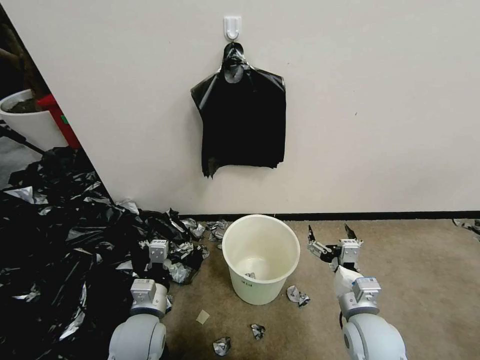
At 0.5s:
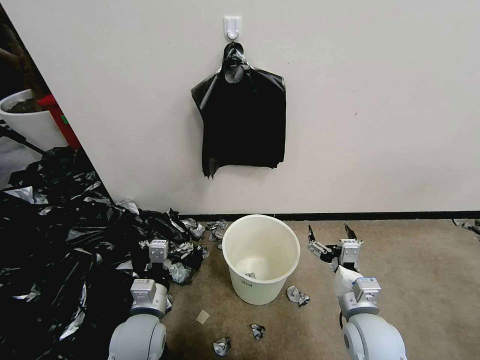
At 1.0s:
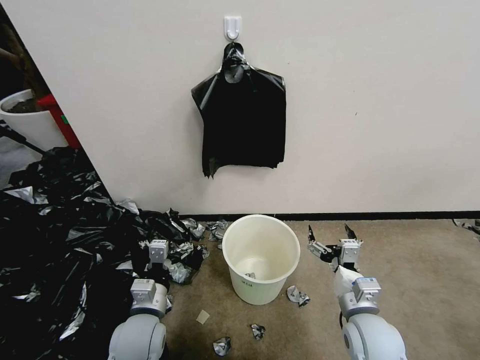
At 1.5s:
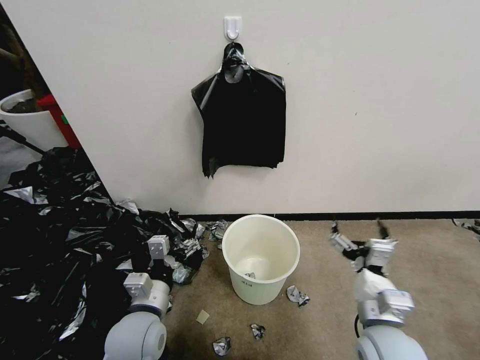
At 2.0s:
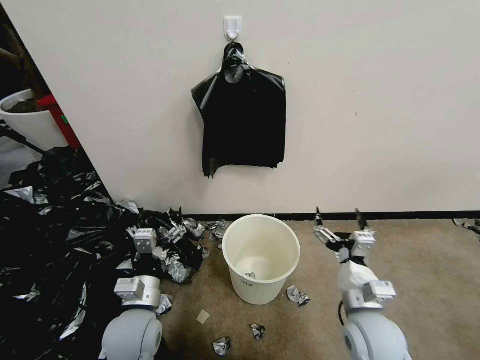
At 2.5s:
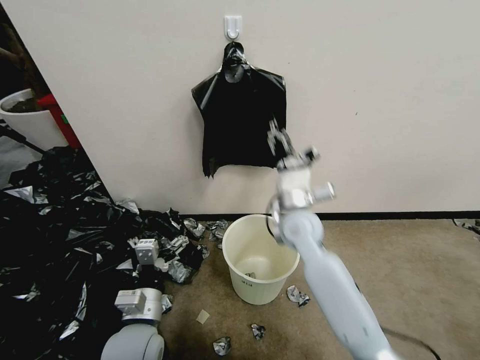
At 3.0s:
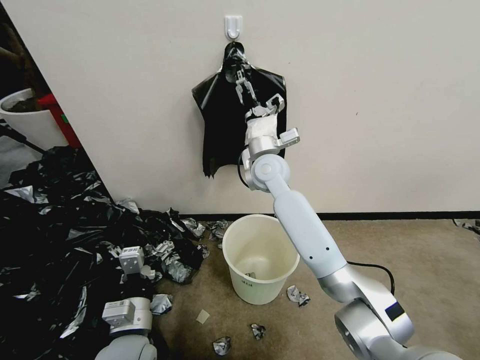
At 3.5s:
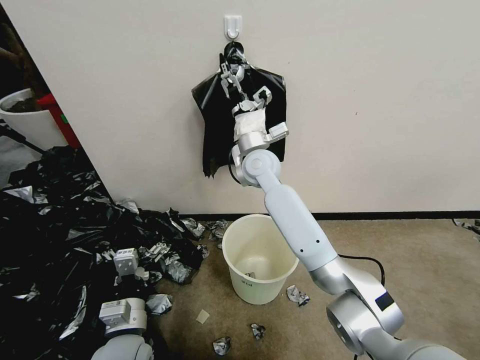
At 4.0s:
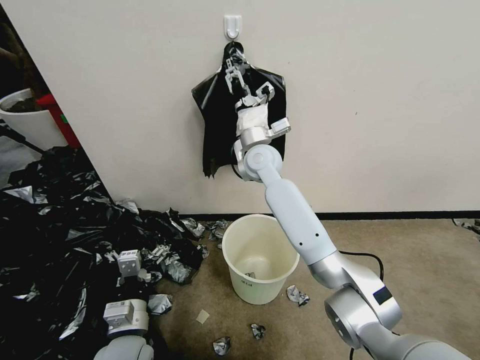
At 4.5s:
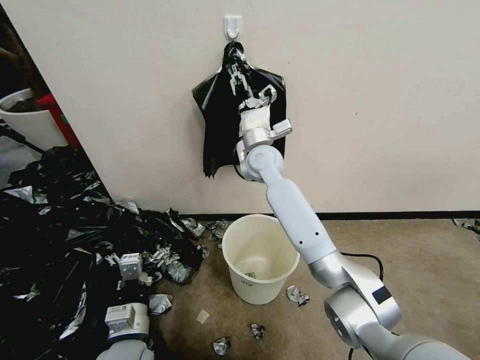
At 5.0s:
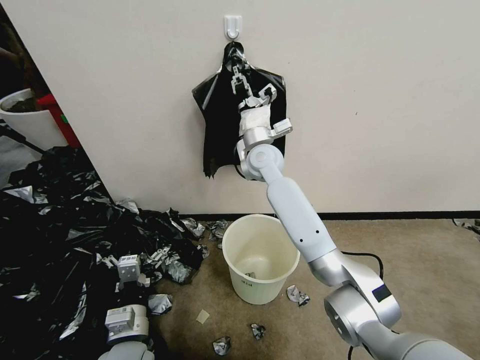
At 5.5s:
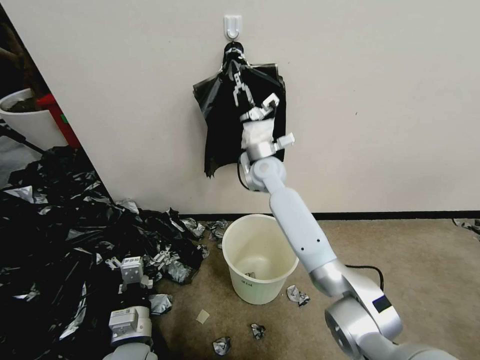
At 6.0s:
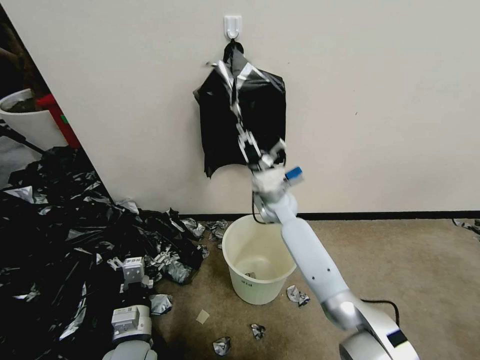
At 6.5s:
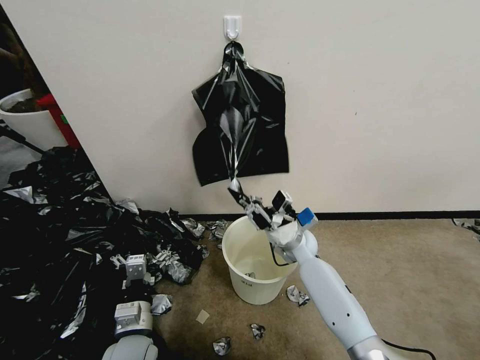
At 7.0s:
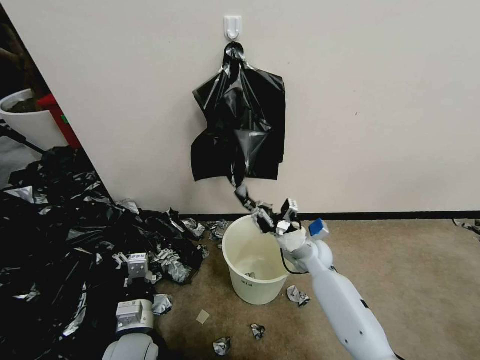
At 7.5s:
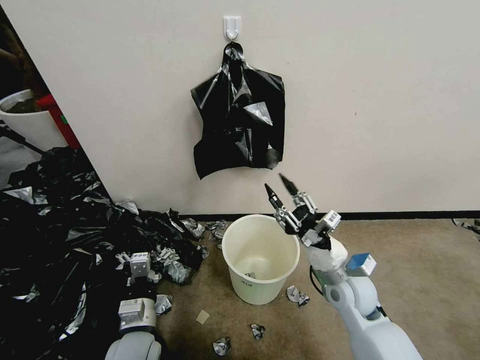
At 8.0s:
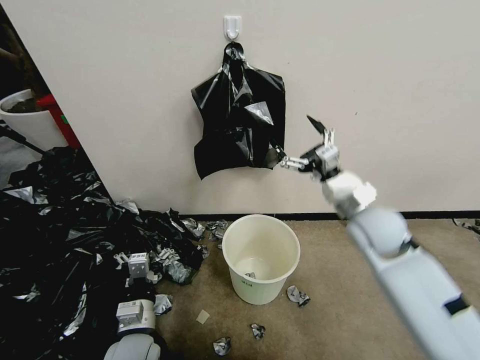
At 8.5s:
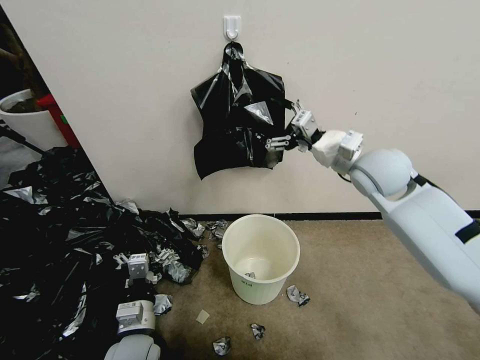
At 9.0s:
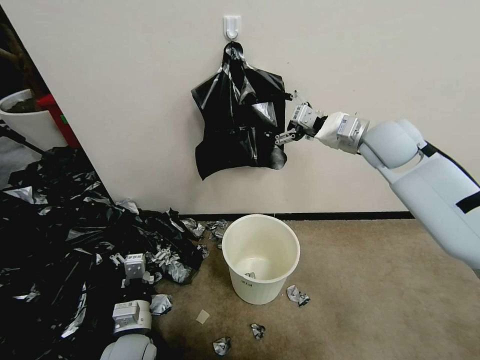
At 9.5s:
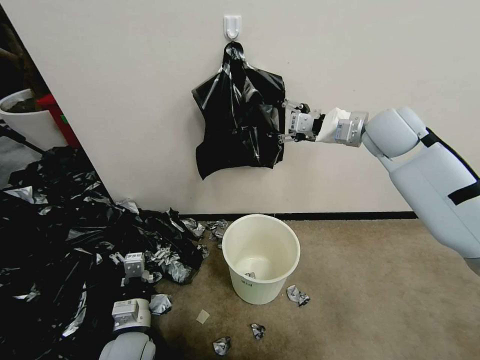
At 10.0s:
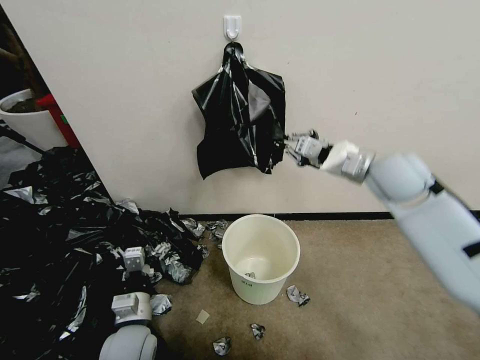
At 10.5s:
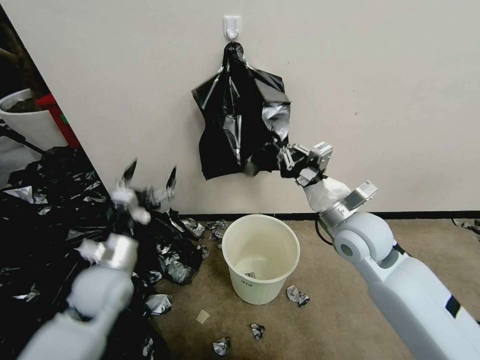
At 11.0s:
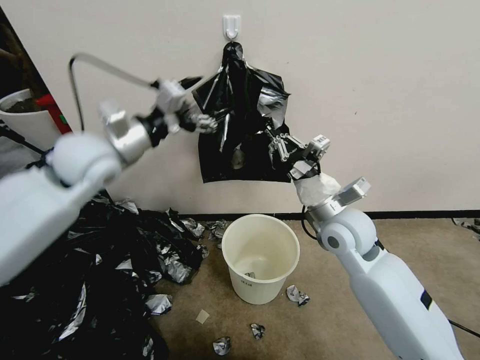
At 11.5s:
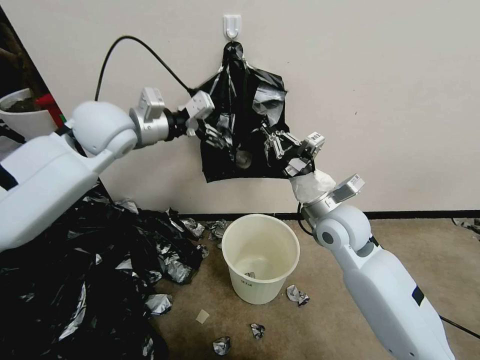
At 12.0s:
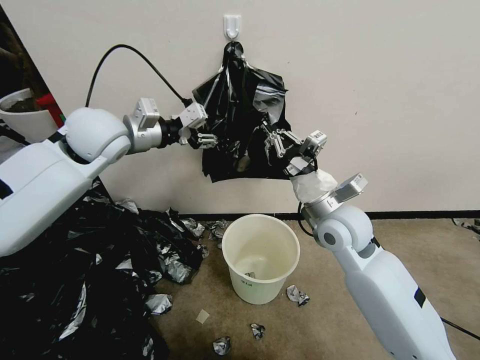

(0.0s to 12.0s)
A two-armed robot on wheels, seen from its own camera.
Task of the whole recording: Place a trash bag onto the trash bin.
2.0s - 4.0s: The right gripper shifts approximately 40 cm forward, to the left and upward.
4.0s - 6.0s: The right gripper heads downward and to the right, covering about 15 cm, and closes up.
6.0s - 8.0s: The right gripper moves to the right, backward and upward, roughly 25 cm, and opens.
8.0s - 10.0s: The right gripper shifts approximately 10 cm upward and forward, and closes its fingers.
10.0s - 12.0s: The left gripper shifts roughly 40 cm upward and forward, and closes up; the right gripper is displaced to the left, backward and downward by about 15 cm.

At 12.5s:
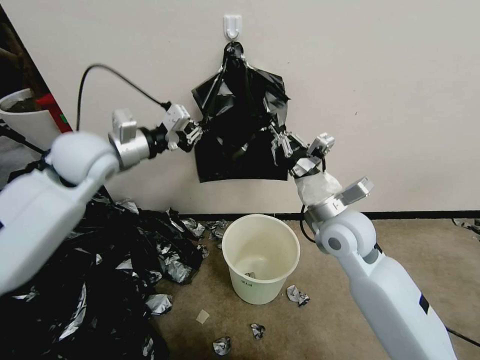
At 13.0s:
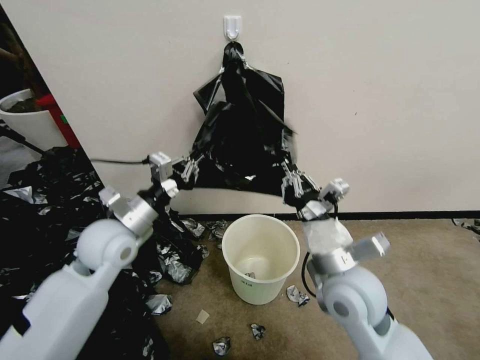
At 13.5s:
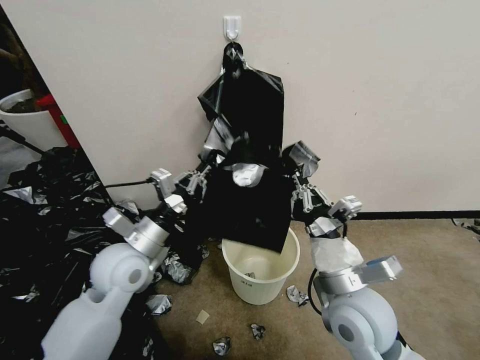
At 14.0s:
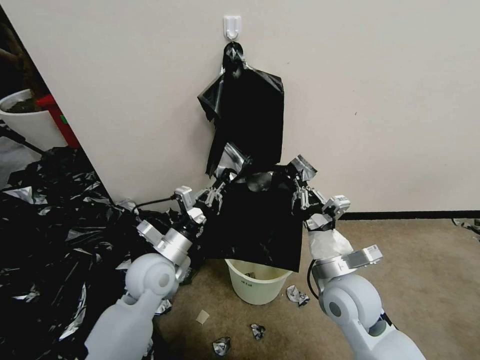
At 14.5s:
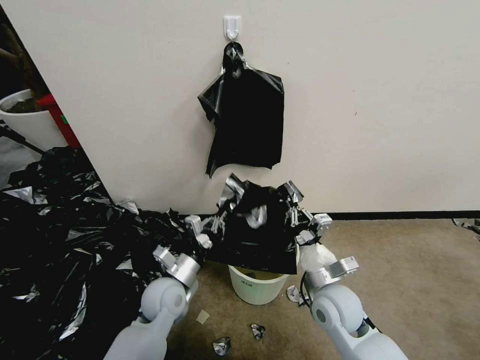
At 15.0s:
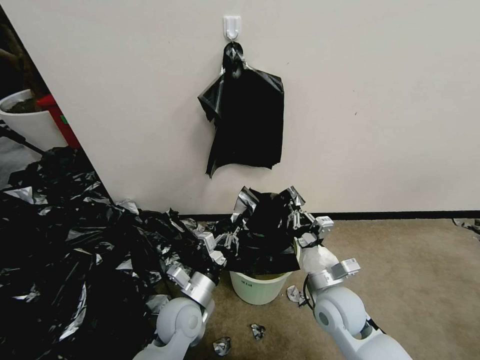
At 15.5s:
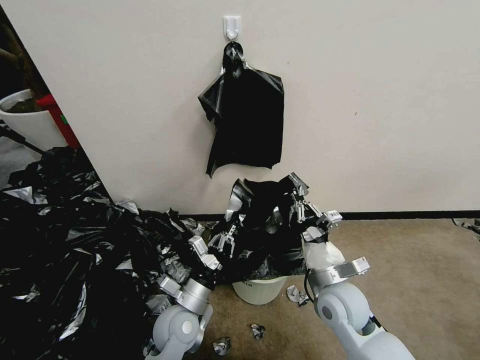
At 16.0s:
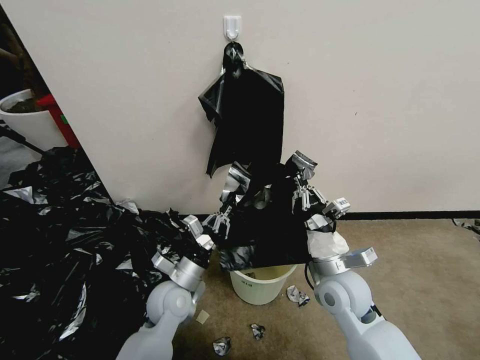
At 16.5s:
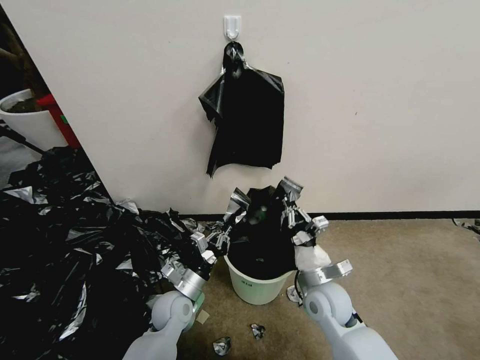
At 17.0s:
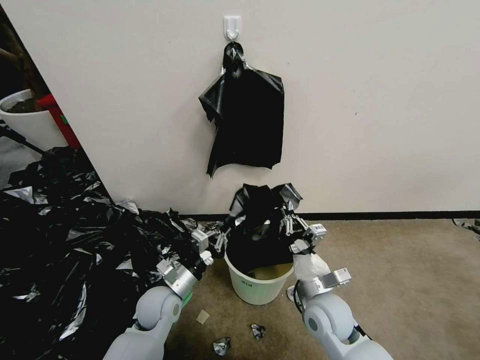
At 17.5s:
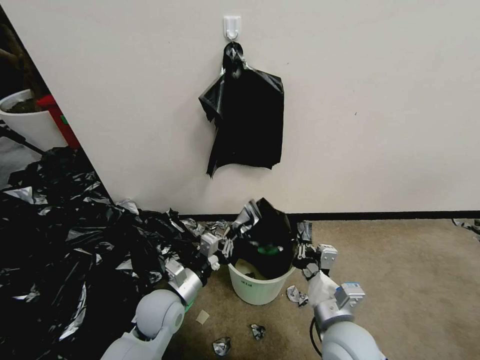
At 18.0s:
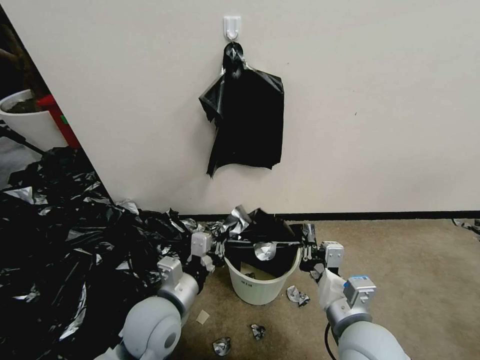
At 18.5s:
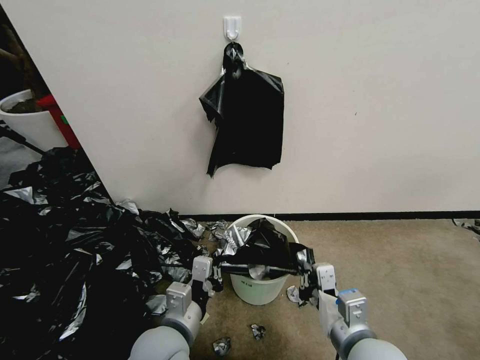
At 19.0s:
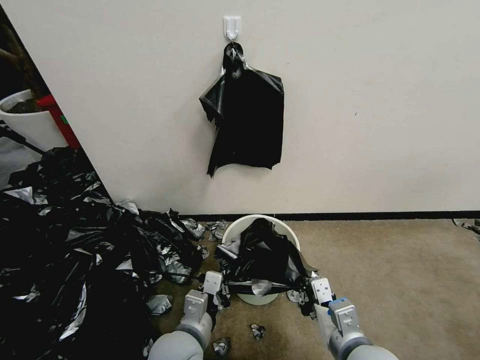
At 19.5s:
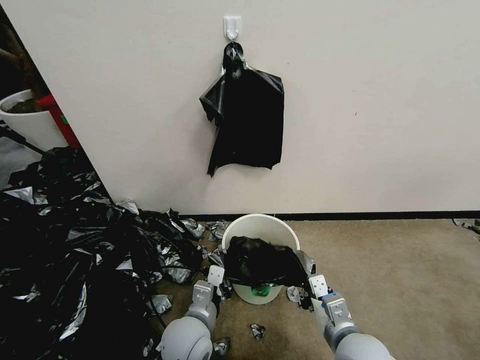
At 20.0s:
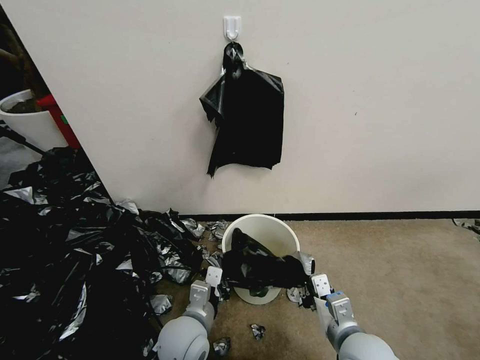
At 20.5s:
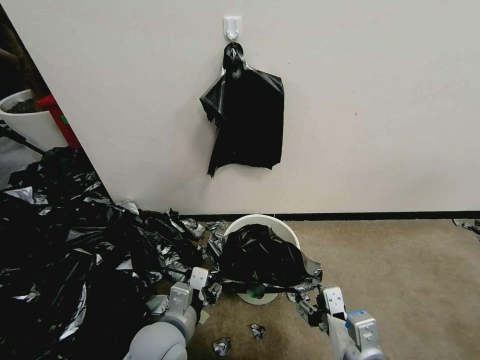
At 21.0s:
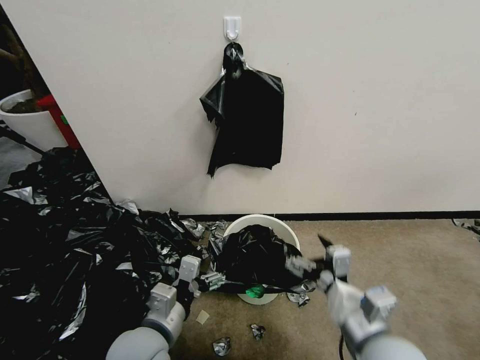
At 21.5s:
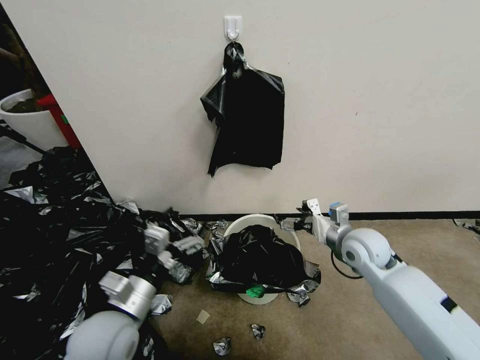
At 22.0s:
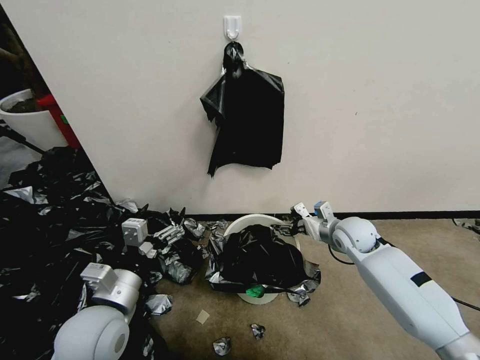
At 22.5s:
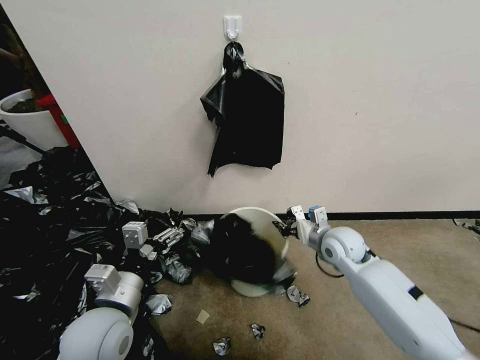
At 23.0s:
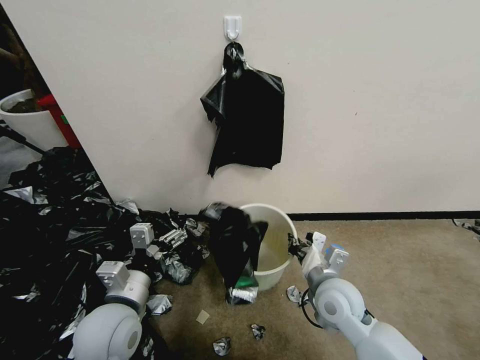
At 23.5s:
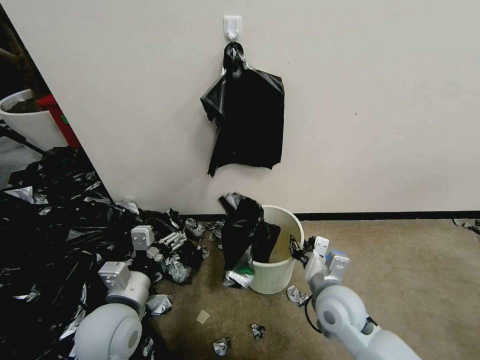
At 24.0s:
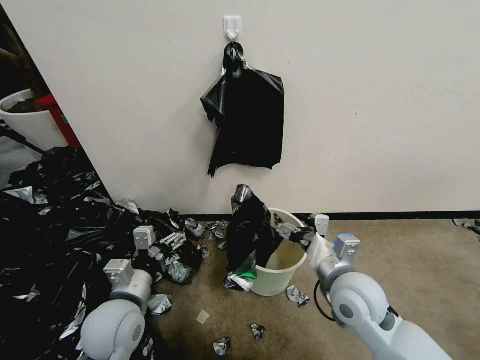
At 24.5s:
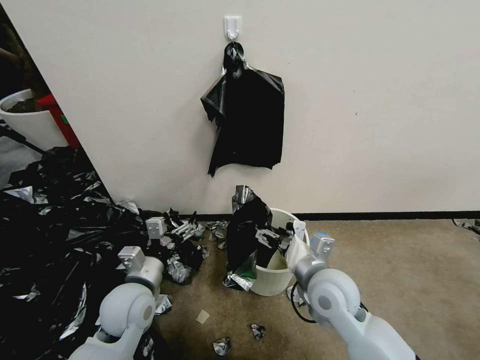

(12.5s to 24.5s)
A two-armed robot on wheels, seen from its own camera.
Task of the whole recording: Place a trash bag onto the trash bin.
12.5s - 14.5s: The right gripper moves downward and backward, roughly 20 cm. Meanwhile the left gripper goes about 35 cm downward and backward.
14.5s - 16.5s: The left gripper travels downward by about 5 cm.
16.5s - 18.5s: The right gripper shifts some 15 cm backward and upward. Meanwhile the left gripper shifts about 20 cm upward and backward.
18.5s - 20.5s: The right gripper opens up; the left gripper opens up.
20.5s - 22.5s: The right gripper heads forward, covering about 30 cm, and closes up. The left gripper moves to the left and upward, roughly 10 cm, and opens.
22.5s - 24.5s: The left gripper shifts some 10 cm forward and downward; the right gripper is displaced backward and to the left by about 15 cm, and opens.

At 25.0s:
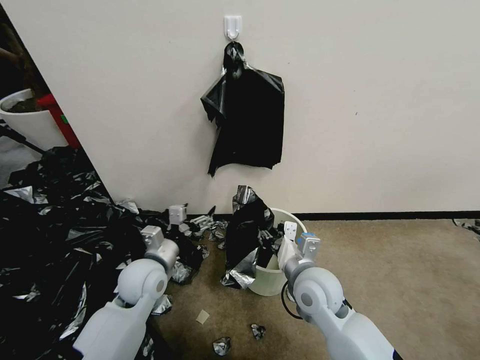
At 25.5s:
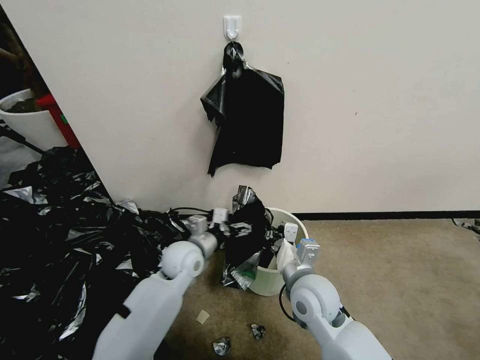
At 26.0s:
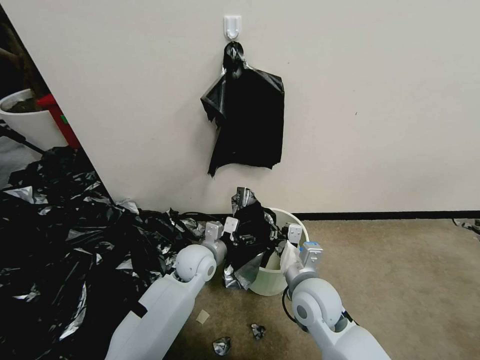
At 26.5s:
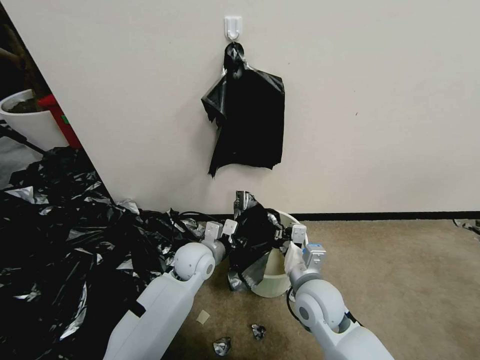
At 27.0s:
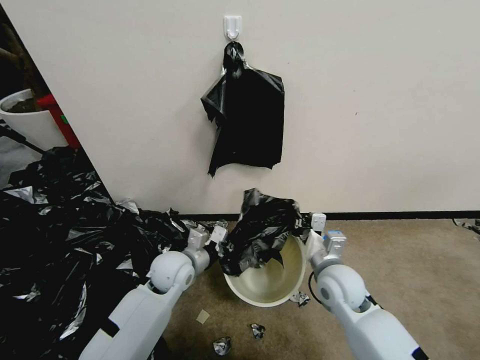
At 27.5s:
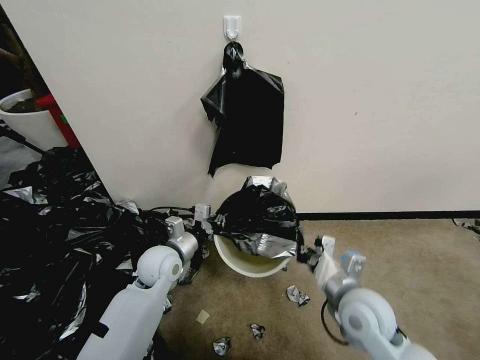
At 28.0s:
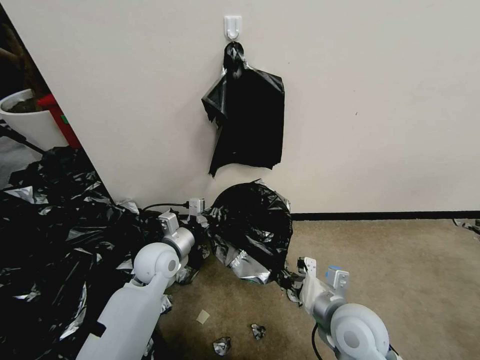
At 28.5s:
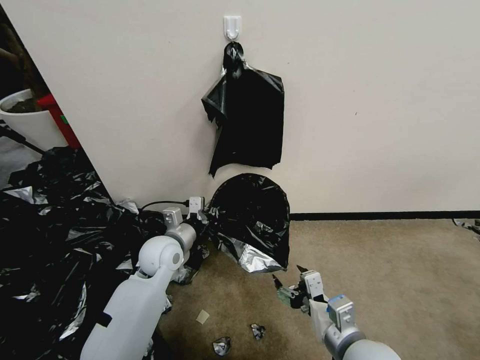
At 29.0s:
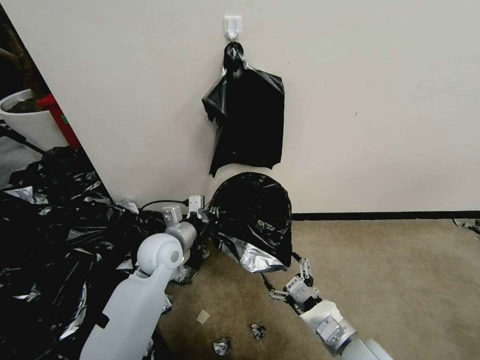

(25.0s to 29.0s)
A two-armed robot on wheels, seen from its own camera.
Task of the whole recording: Place a trash bag onto the trash bin.
25.0s - 27.0s: Both grippers move to the right, approximately 5 cm. The right gripper closes up. The left gripper closes up.
27.0s - 29.0s: The left gripper travels upward by approximately 5 cm, while the right gripper shifts some 15 cm backward, and opens.
